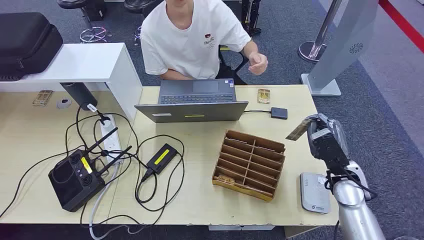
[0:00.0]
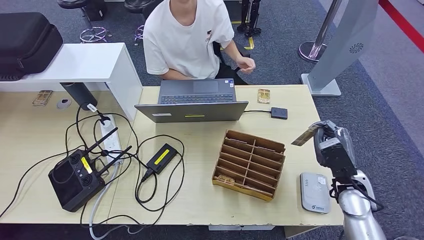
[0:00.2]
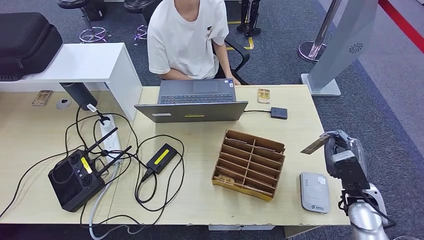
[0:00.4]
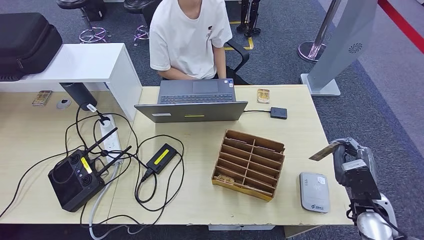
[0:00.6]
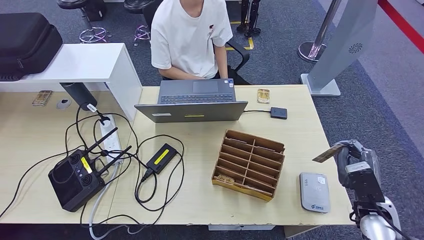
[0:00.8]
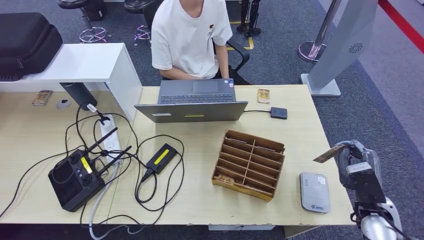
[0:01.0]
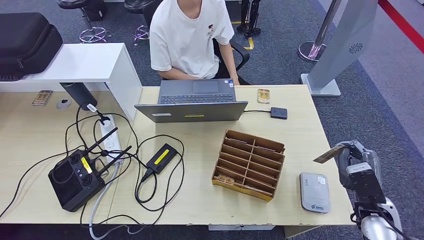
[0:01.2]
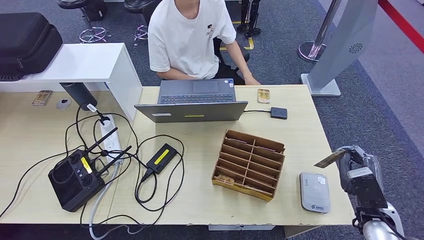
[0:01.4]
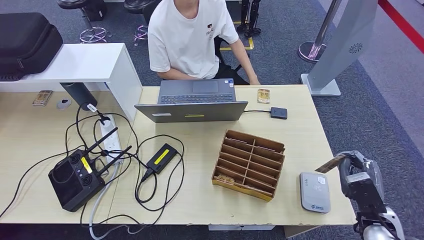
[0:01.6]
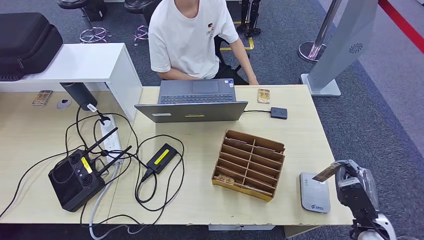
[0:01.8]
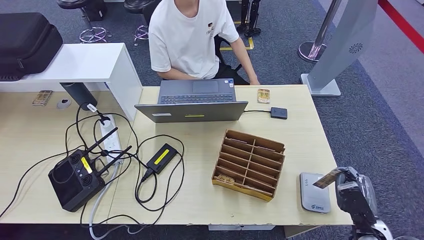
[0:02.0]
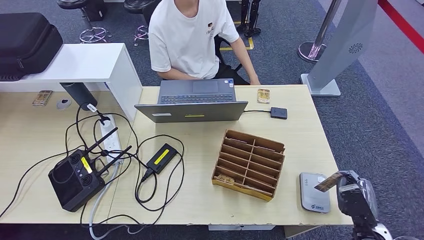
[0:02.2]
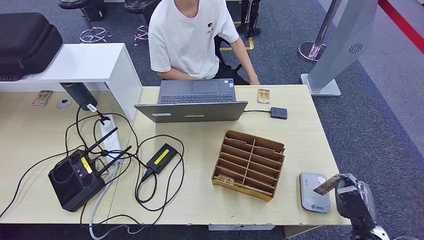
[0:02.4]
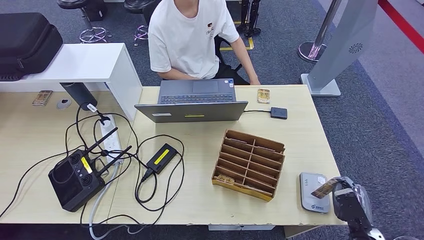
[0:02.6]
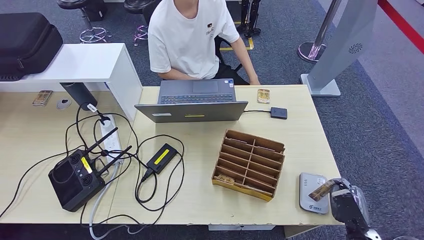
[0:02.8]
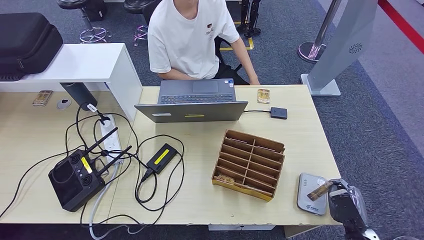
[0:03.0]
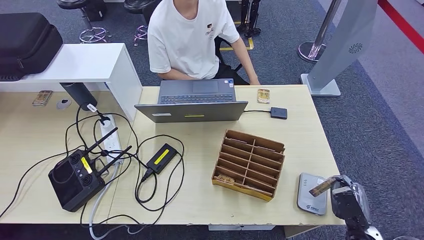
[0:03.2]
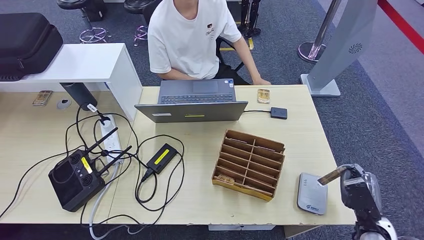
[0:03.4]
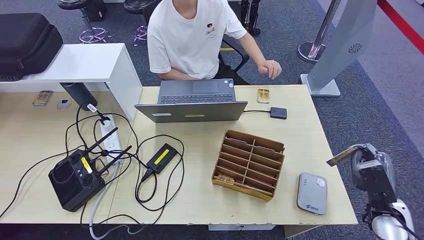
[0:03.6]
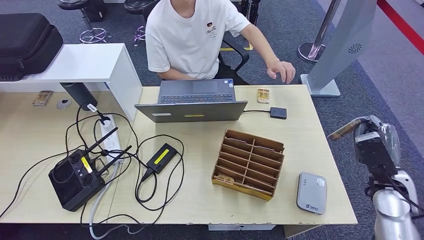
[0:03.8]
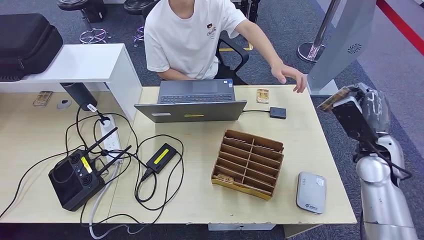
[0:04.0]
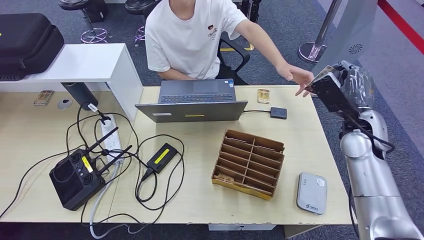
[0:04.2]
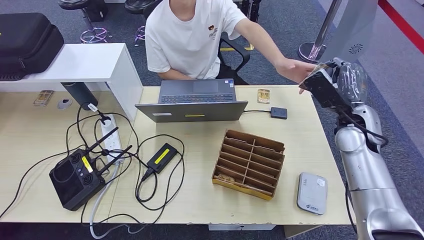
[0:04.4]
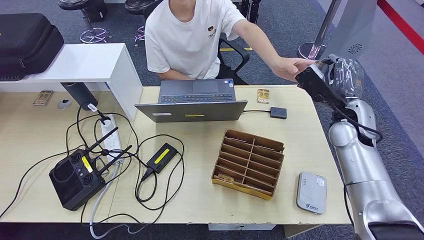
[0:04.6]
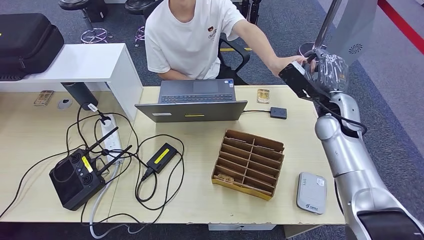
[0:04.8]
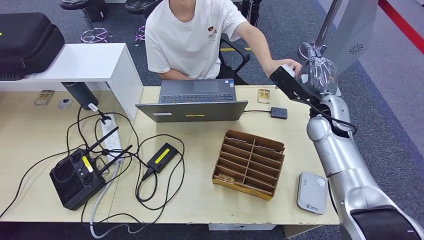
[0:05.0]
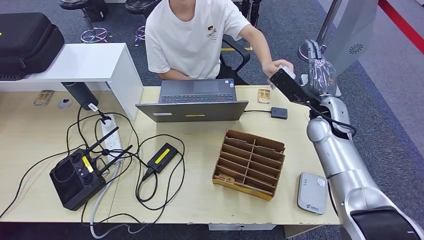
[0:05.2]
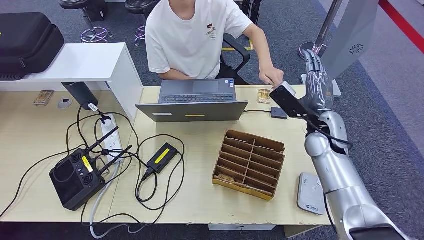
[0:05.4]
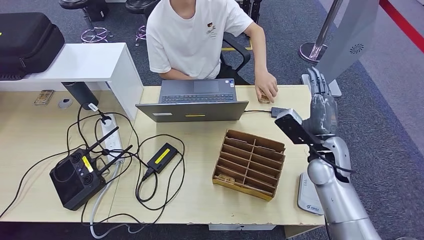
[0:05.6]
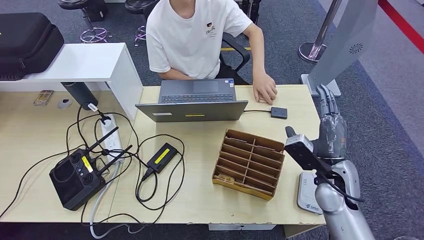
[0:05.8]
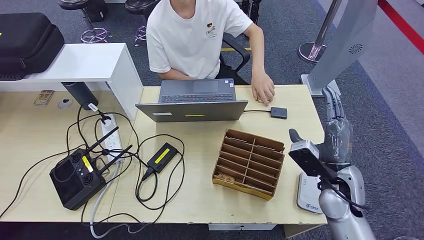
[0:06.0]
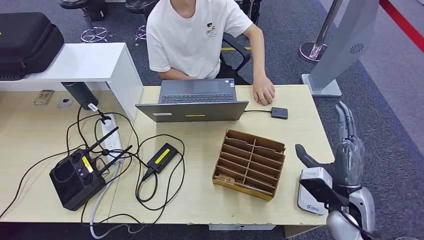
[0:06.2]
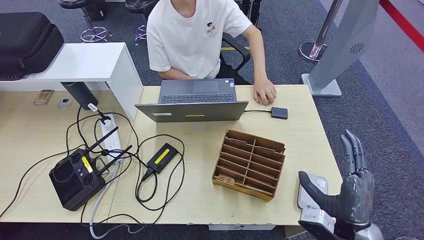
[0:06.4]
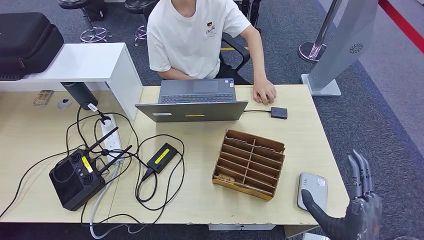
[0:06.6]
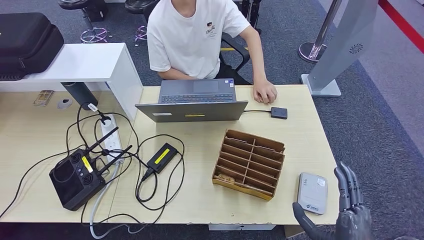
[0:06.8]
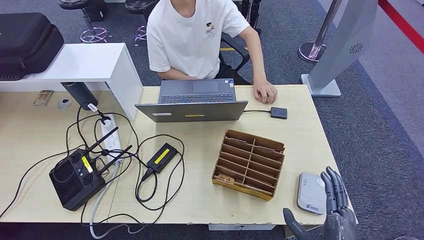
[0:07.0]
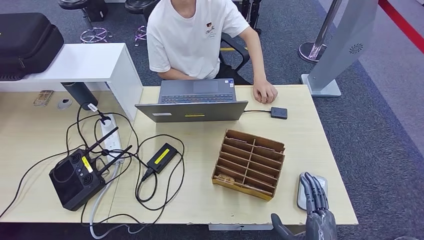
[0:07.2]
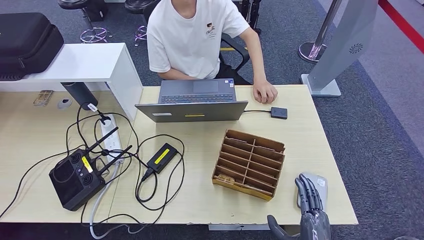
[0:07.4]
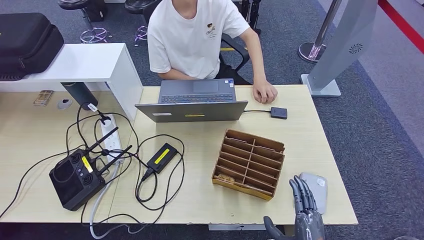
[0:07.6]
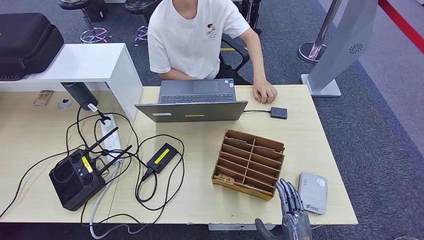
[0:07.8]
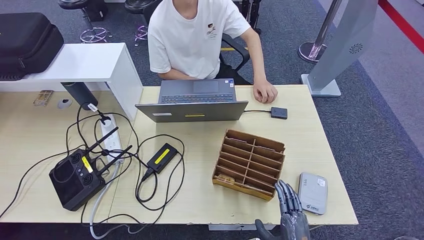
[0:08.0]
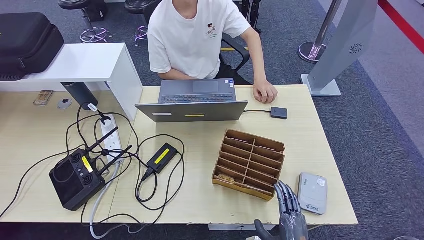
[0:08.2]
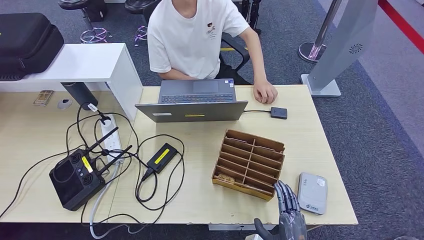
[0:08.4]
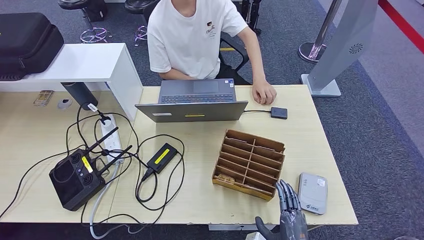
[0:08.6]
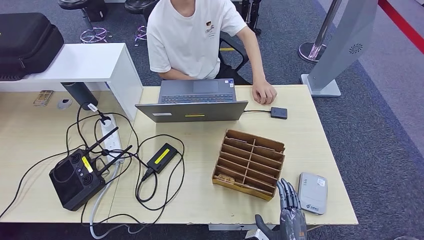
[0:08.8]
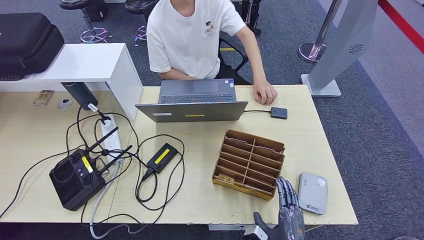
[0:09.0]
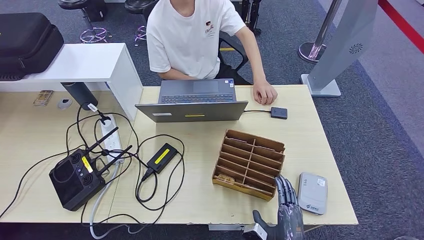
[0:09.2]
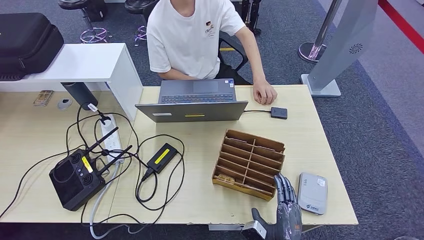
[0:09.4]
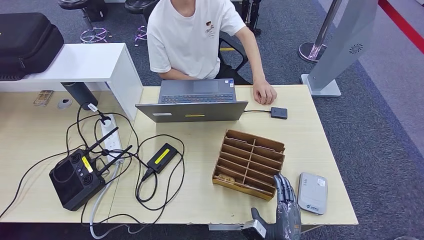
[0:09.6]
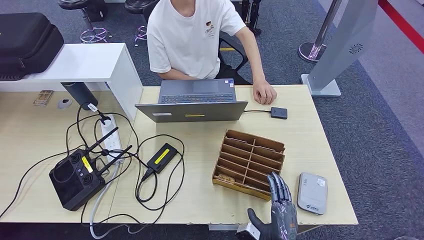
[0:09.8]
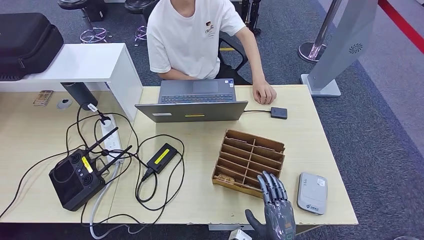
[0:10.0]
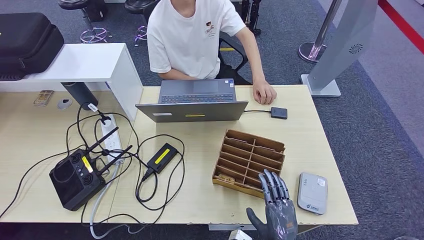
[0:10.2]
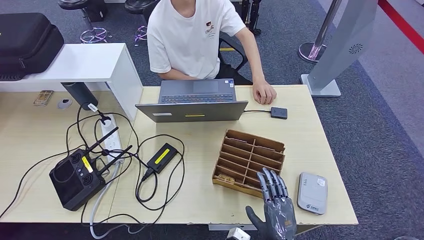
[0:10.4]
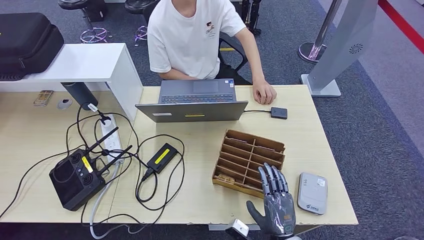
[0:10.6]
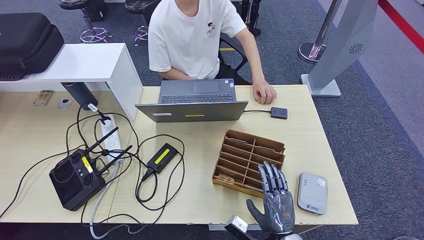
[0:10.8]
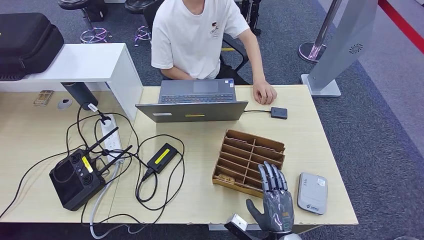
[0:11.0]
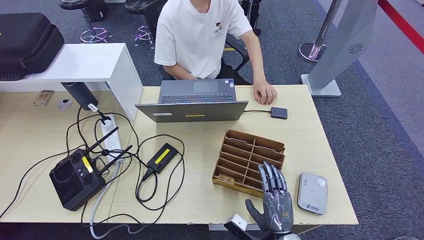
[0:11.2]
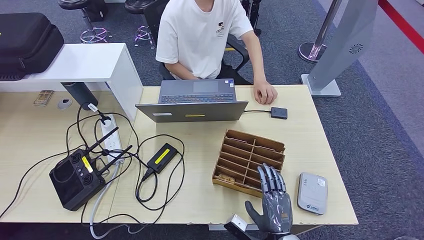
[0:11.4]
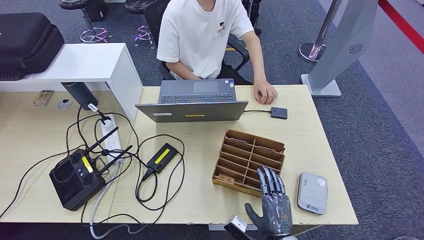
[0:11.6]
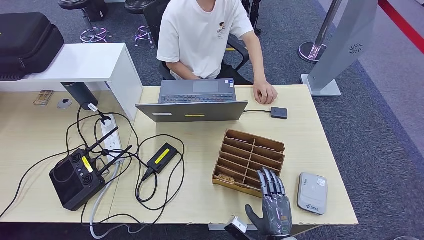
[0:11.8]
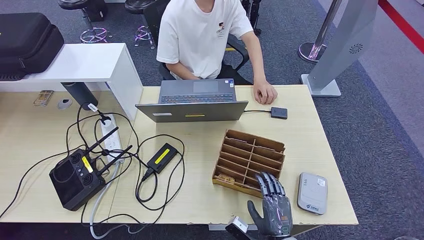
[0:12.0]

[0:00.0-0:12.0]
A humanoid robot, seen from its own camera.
Step, 0:00.0 to 0:00.8: Take the ID card from the person's hand.
Step, 0:01.0 to 0:03.8: Place the ID card on the card reader.
Step, 0:04.0 to 0:07.8: Hand the ID card to the person.
0:01.6 to 0:03.0: The right hand heads downward, covering roughly 10 cm.
0:03.0 to 0:04.4: The right hand shifts approximately 30 cm forward and upward.
0:04.4 to 0:06.0: The right hand goes about 15 cm backward and downward.
0:06.0 to 0:07.6: The right hand moves backward and downward, about 20 cm.
0:07.6 to 0:09.0: The right hand heads downward, covering approximately 5 cm.
0:09.0 to 0:12.0: The hands move only a little.

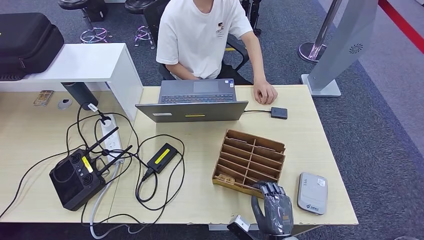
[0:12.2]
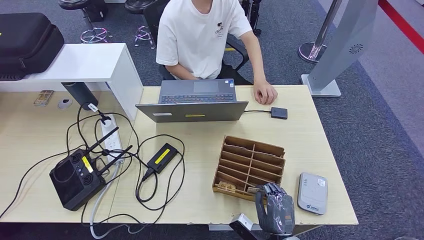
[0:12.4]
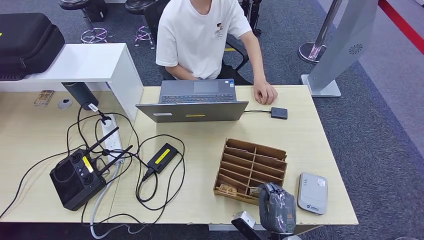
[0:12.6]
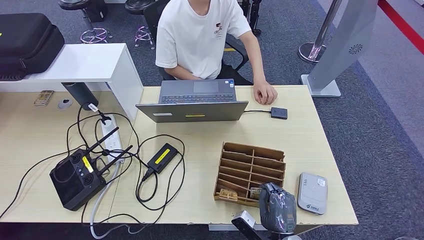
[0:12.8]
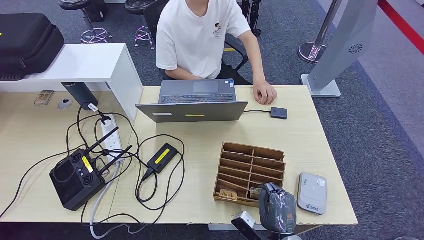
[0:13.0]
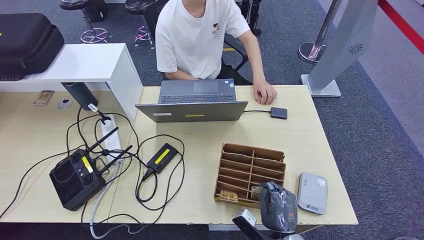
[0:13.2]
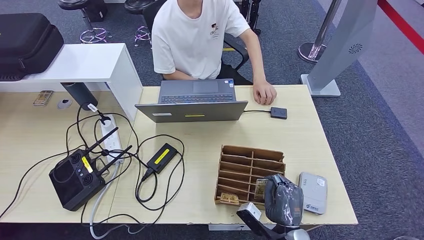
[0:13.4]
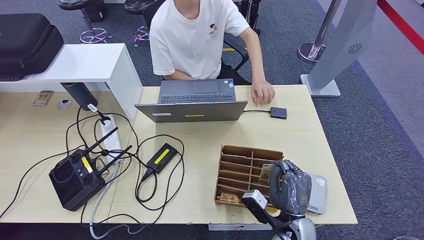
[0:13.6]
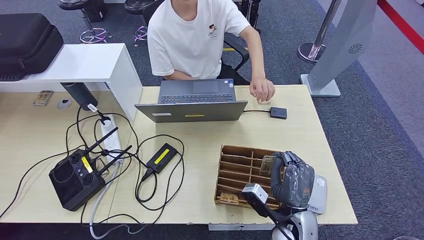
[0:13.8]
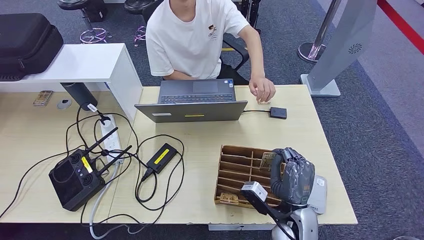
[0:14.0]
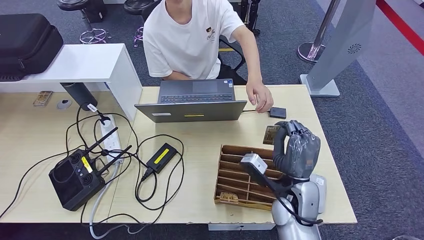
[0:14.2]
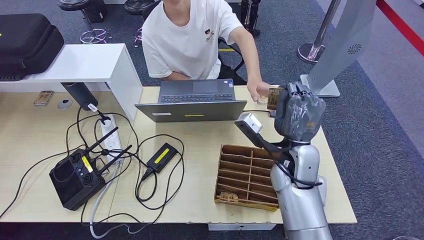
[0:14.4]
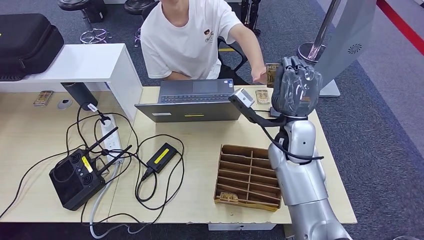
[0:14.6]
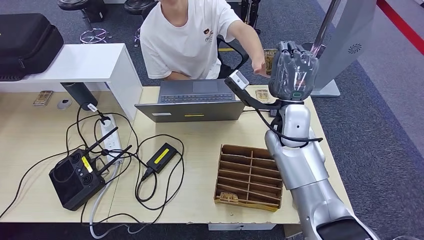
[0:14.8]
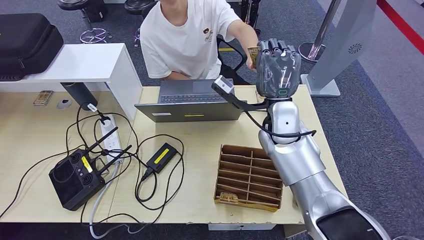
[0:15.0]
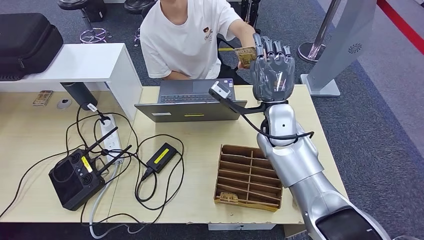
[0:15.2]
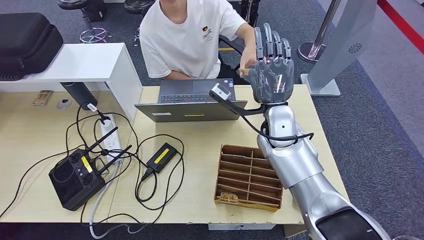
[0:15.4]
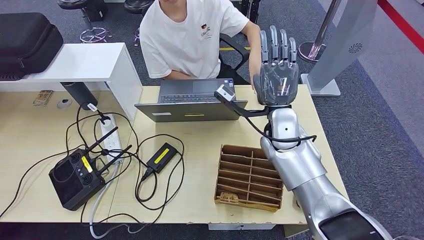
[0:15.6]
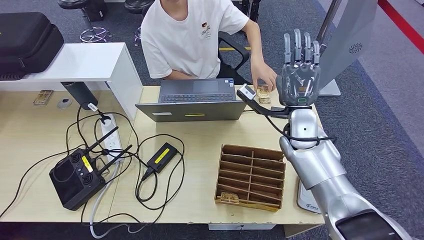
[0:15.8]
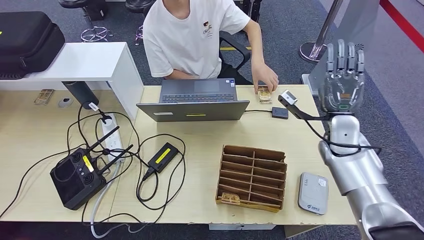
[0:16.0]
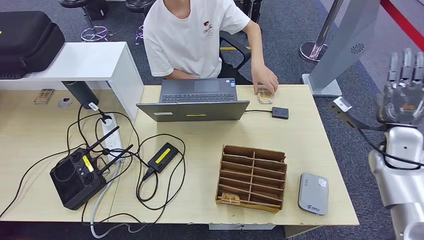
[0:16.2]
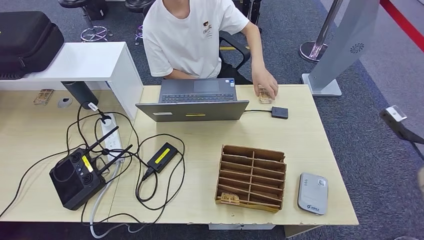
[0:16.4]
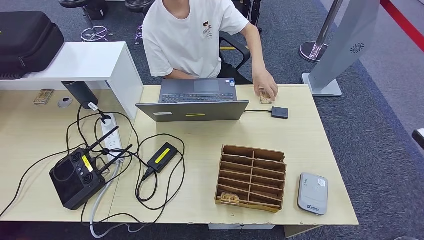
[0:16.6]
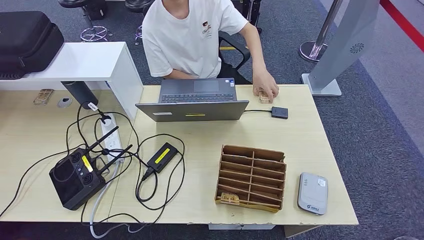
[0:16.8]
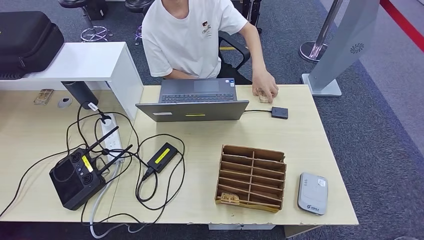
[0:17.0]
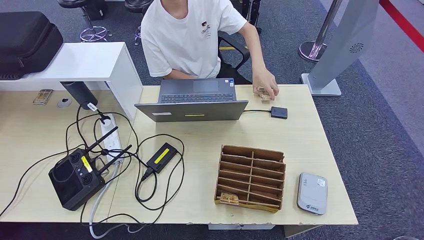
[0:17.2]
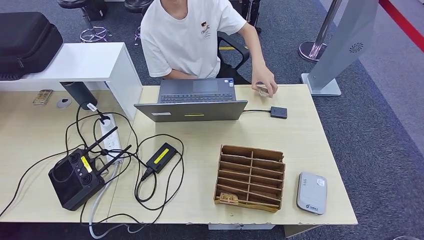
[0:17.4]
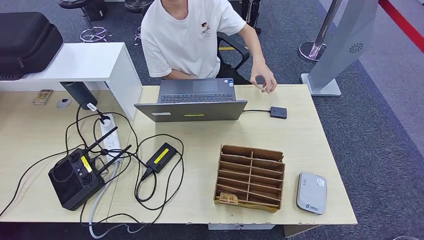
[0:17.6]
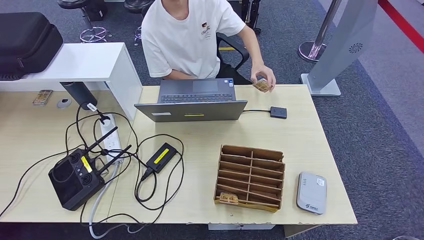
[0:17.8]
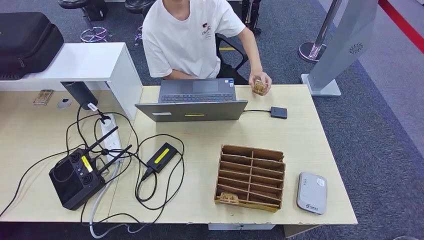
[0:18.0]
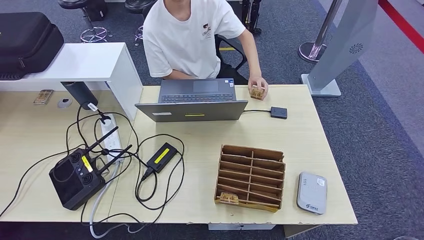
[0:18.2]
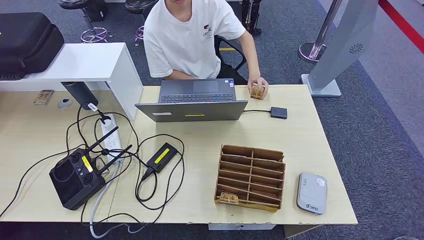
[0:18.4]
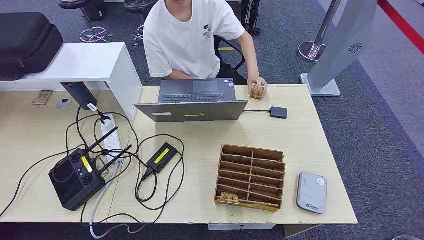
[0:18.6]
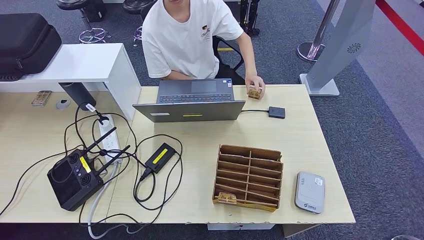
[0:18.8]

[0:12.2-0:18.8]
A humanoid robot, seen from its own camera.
0:12.2 to 0:13.8: The right hand shifts approximately 10 cm upward and forward.
0:13.8 to 0:15.4: The right hand moves forward and upward, some 25 cm.
0:15.4 to 0:17.2: The right hand moves to the right and backward, roughly 60 cm.
0:17.2 to 0:18.8: The left hand travels to the left by approximately 10 cm, while the right hand is displaced to the left and downward by roughly 40 cm.
